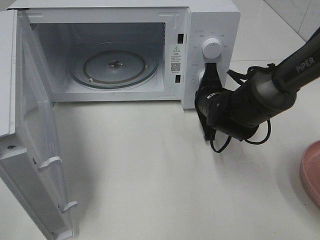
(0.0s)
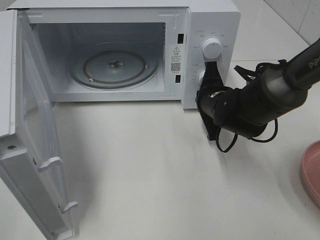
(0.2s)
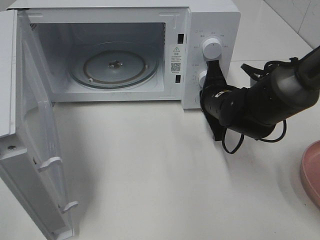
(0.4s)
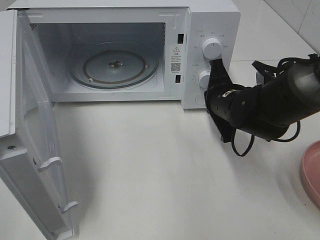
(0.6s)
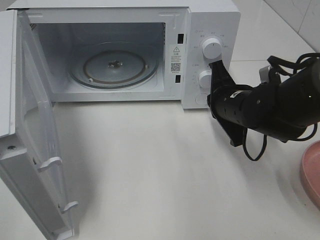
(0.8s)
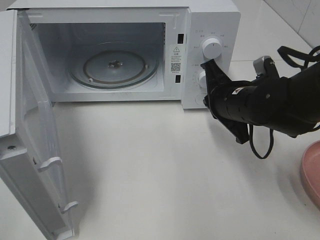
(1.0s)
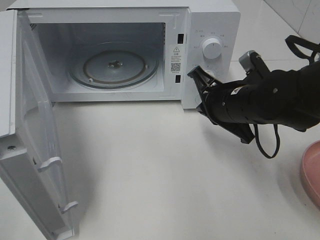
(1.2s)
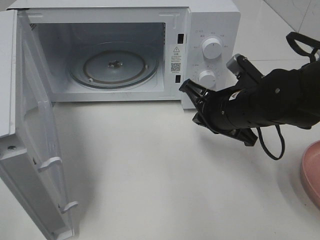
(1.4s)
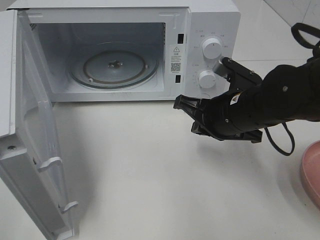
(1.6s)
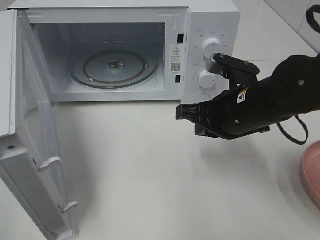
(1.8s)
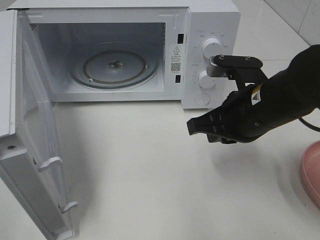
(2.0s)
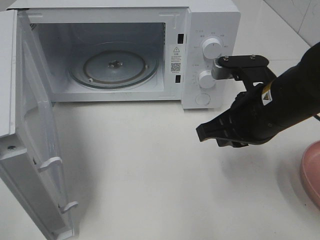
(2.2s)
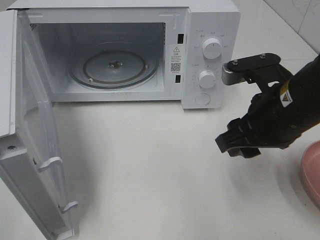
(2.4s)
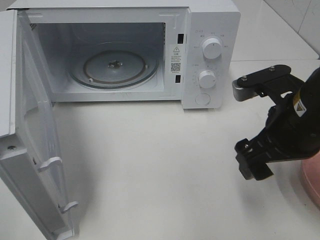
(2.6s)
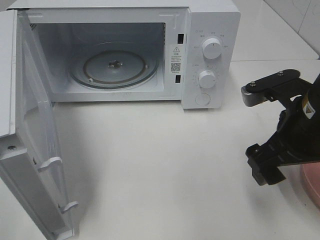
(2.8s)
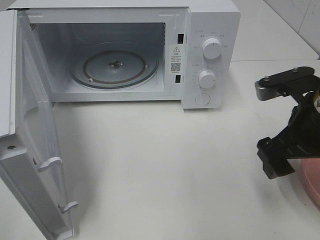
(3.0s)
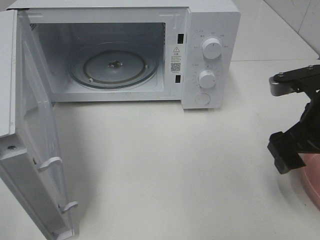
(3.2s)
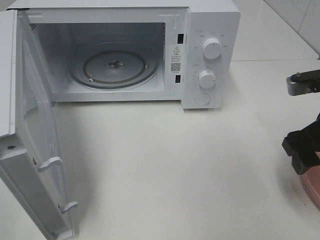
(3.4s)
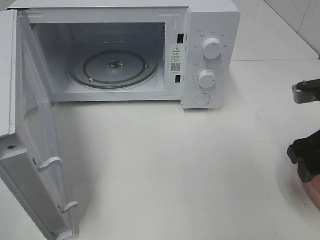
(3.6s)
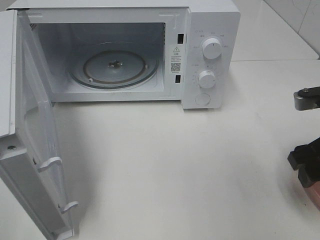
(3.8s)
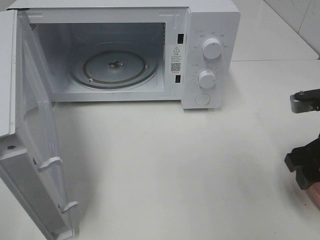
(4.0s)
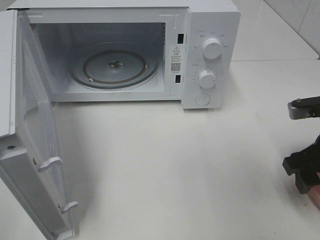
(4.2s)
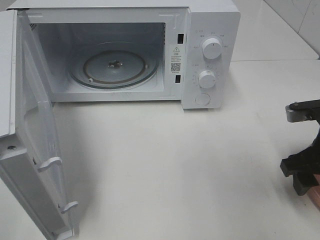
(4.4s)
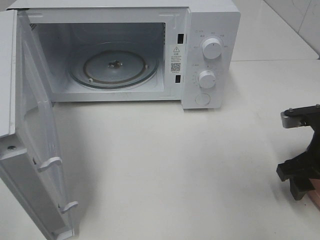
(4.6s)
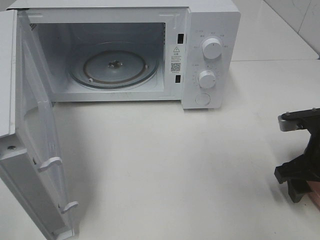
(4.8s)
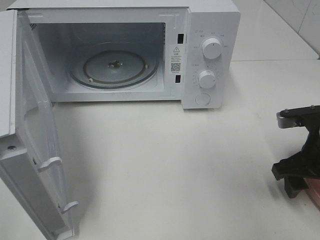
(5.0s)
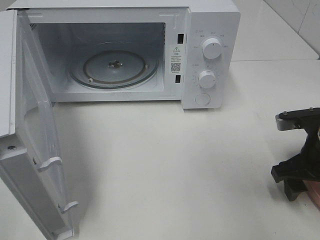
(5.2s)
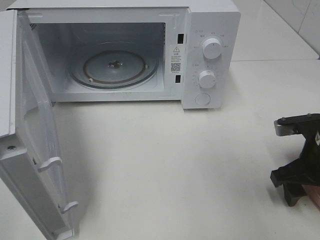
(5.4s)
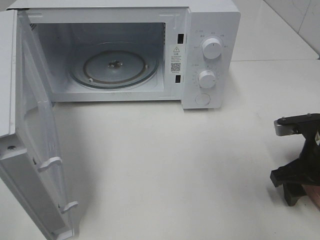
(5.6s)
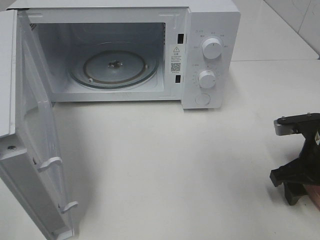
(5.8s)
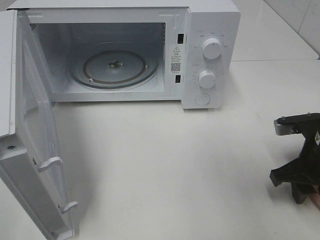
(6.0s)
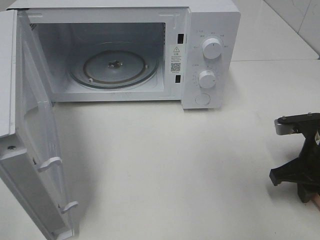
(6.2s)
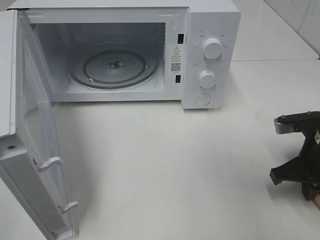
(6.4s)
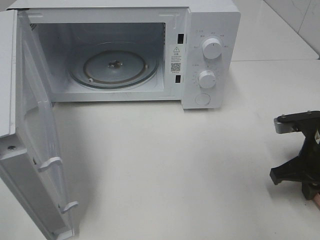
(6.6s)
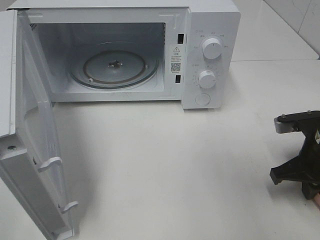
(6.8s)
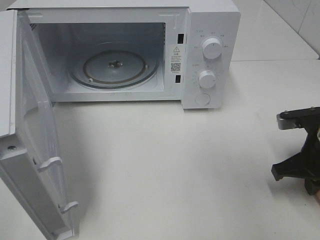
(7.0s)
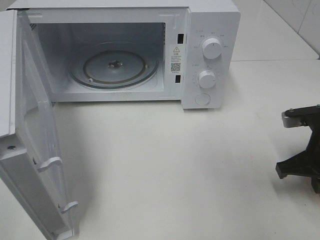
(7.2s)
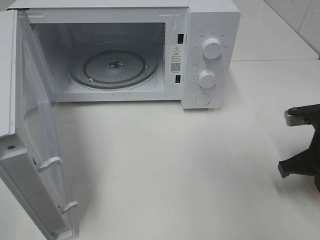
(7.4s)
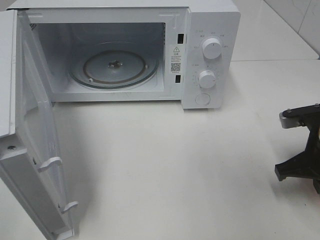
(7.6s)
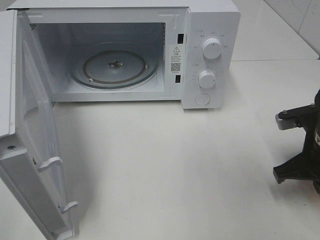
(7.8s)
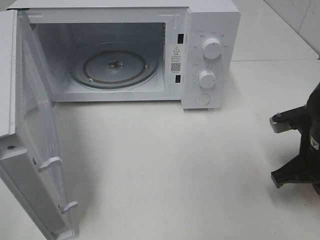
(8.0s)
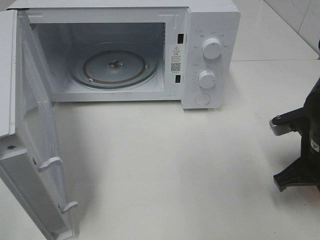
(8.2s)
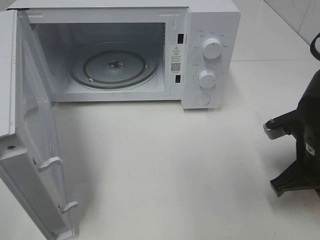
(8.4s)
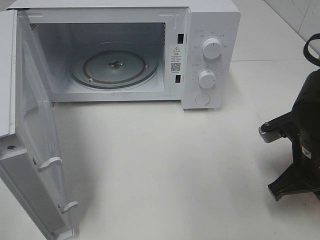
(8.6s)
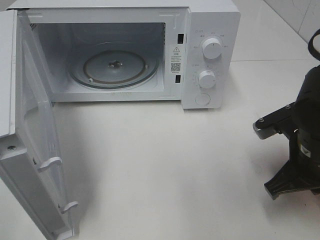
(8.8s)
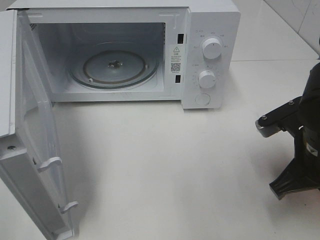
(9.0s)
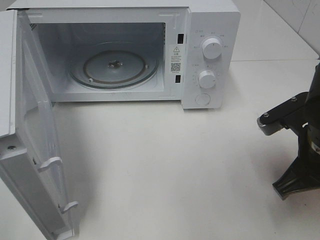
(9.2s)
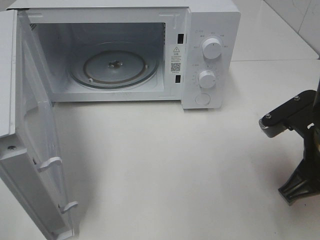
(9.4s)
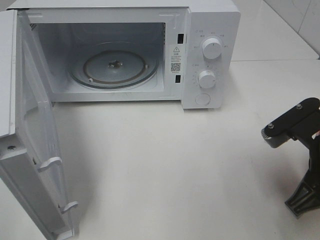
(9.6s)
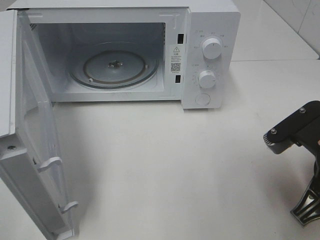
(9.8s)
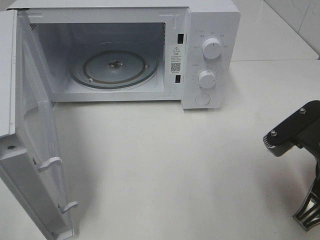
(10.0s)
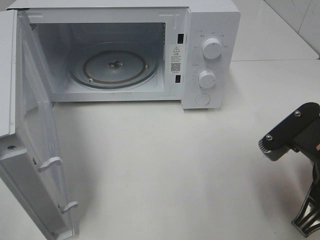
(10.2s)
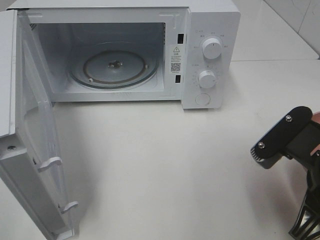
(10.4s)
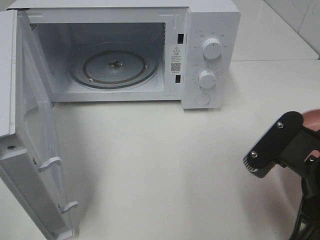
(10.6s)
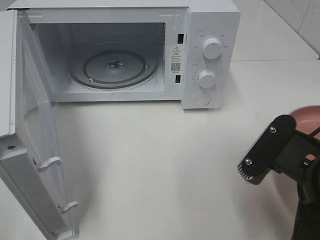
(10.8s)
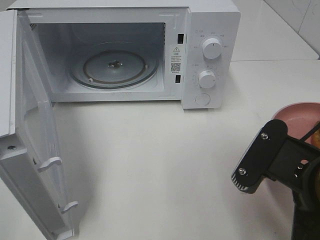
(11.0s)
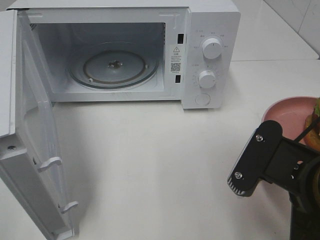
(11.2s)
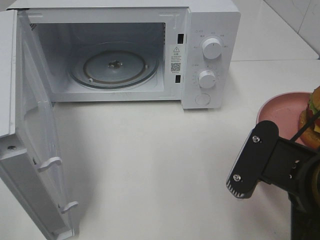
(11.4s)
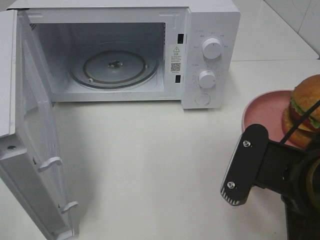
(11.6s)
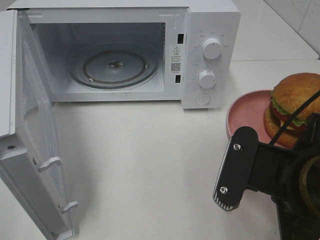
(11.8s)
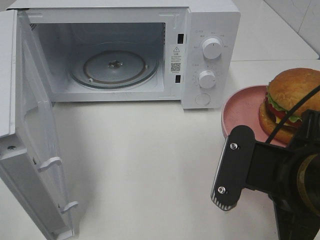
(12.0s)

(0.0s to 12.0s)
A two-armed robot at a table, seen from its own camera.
Task of the whole recording: Heat the burger.
Step, 0.6s - 6.6s: Right hand: grab the plate with the hamburger.
0.0s - 1.6s: The right gripper heads backward and upward, covering about 10 cm.
1.6s - 3.0s: The right gripper goes some 10 cm to the right, upward and backward, and opens up.
3.0s - 4.4s: The right gripper goes some 10 cm downward and to the right.
4.4s - 6.0s: The right gripper closes.
6.0s - 7.6s: The right gripper closes its fingers.
7.6s - 9.0s: The right gripper goes about 5 cm to the left.
9.0s - 10.4s: The right gripper is displaced backward by roughly 5 cm.

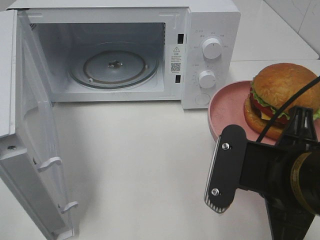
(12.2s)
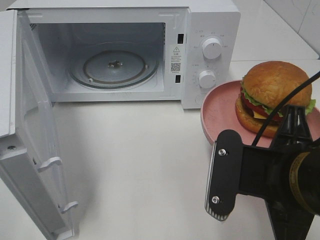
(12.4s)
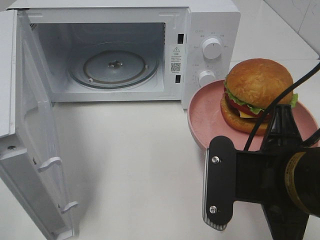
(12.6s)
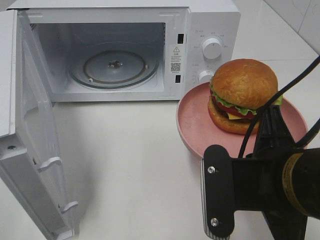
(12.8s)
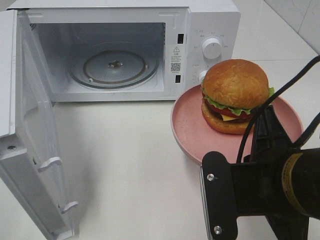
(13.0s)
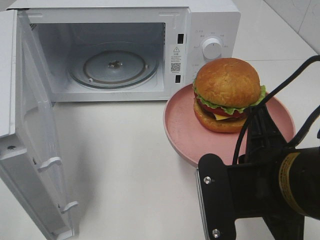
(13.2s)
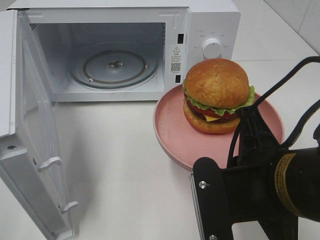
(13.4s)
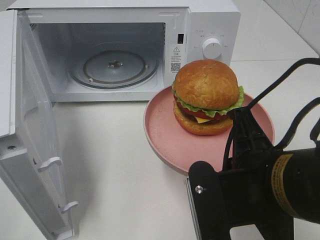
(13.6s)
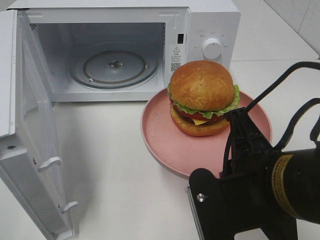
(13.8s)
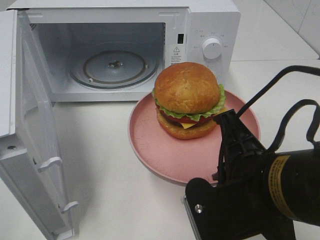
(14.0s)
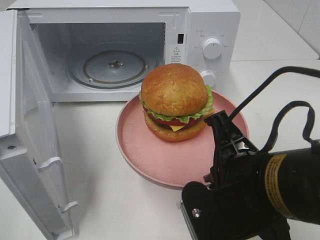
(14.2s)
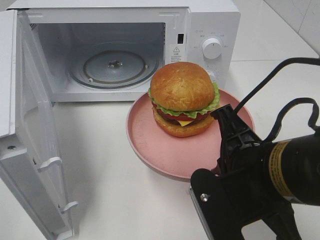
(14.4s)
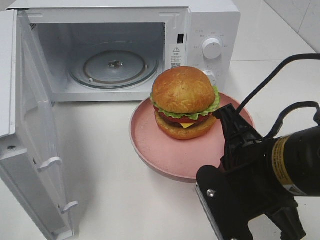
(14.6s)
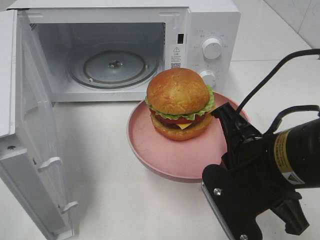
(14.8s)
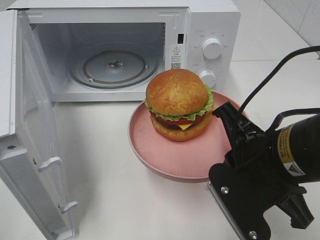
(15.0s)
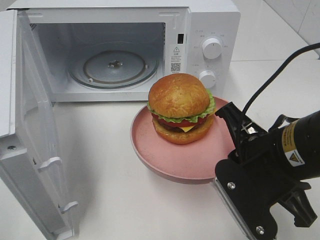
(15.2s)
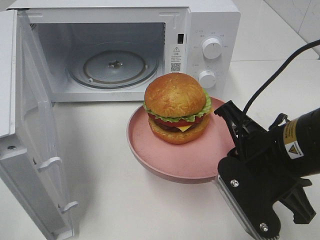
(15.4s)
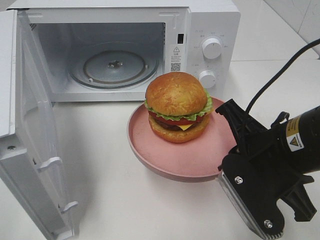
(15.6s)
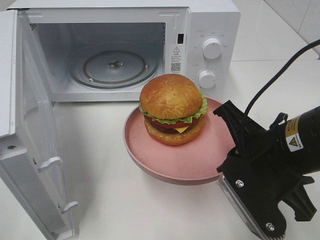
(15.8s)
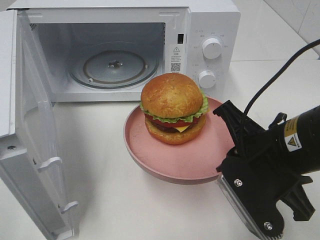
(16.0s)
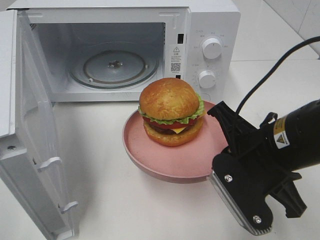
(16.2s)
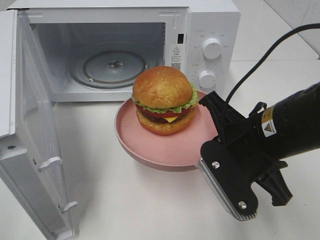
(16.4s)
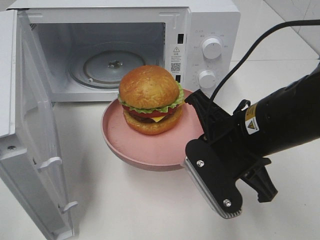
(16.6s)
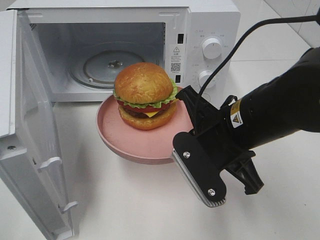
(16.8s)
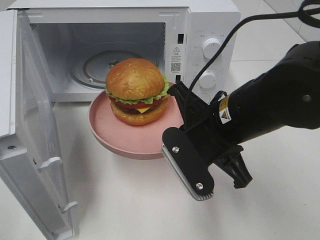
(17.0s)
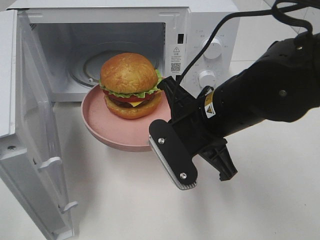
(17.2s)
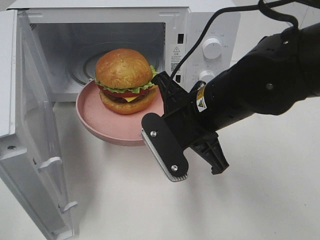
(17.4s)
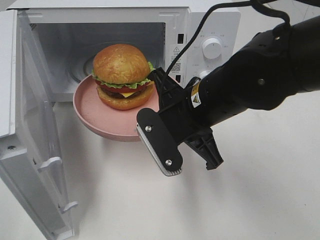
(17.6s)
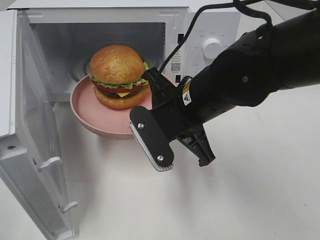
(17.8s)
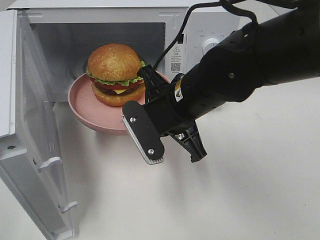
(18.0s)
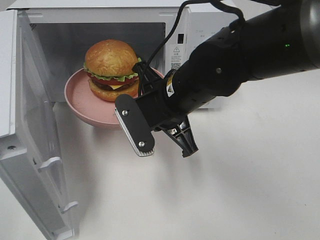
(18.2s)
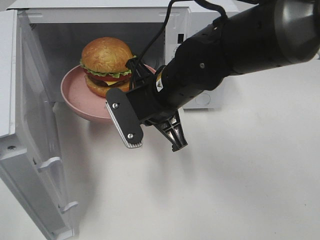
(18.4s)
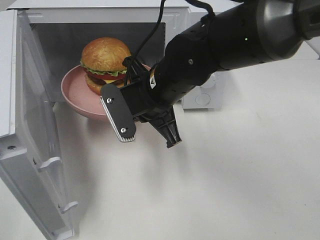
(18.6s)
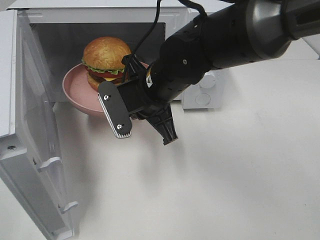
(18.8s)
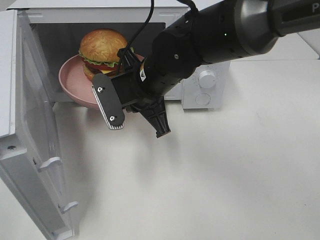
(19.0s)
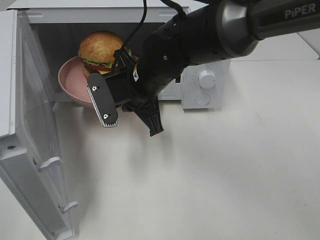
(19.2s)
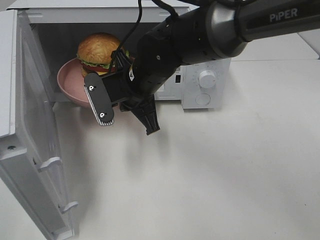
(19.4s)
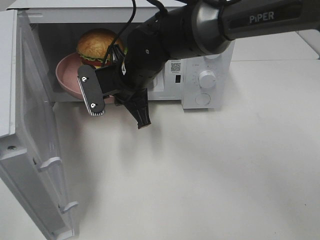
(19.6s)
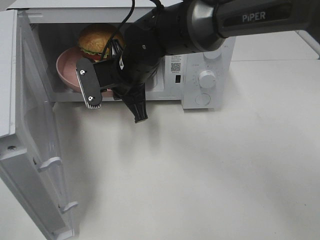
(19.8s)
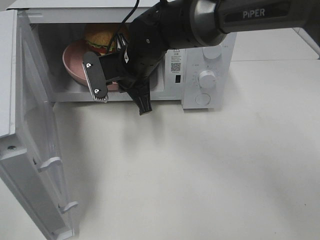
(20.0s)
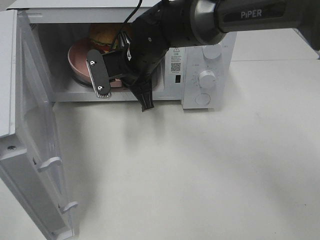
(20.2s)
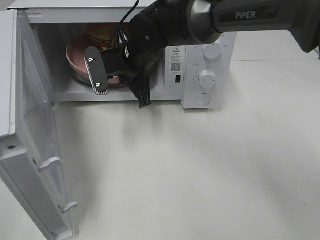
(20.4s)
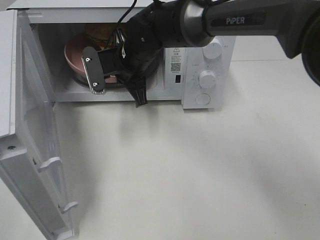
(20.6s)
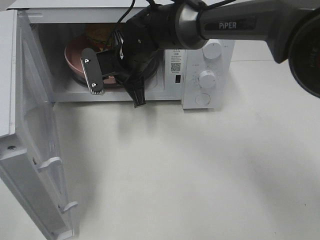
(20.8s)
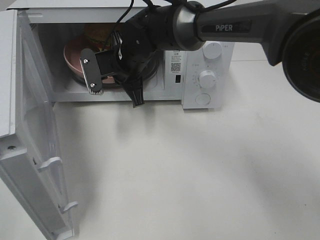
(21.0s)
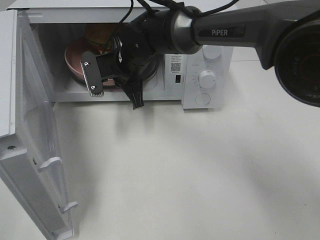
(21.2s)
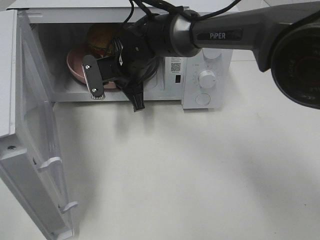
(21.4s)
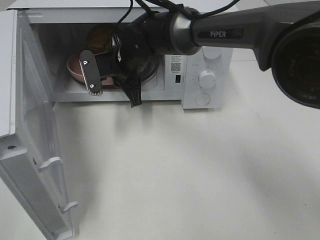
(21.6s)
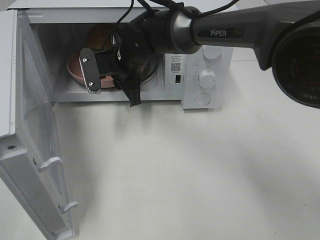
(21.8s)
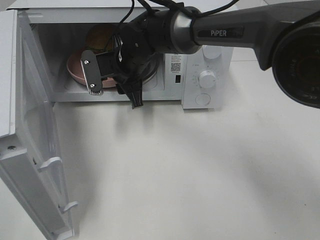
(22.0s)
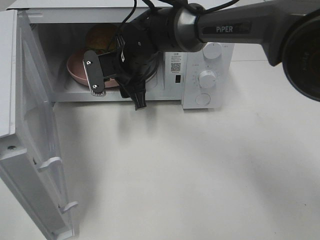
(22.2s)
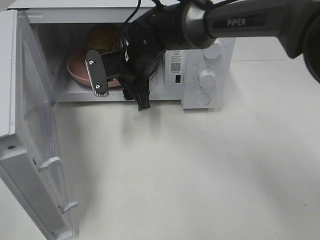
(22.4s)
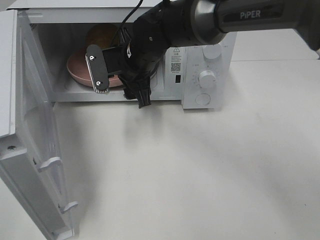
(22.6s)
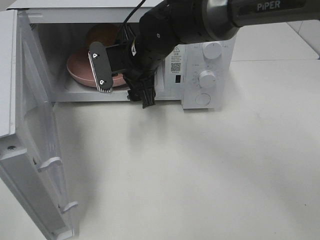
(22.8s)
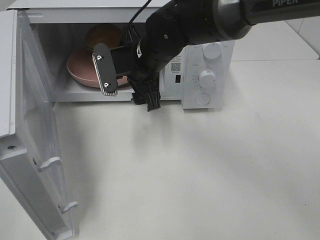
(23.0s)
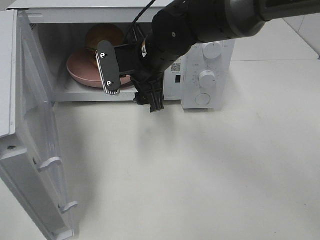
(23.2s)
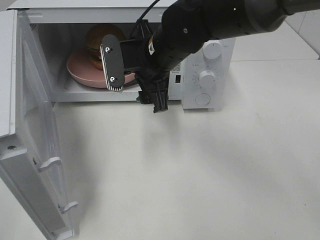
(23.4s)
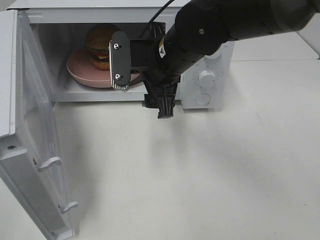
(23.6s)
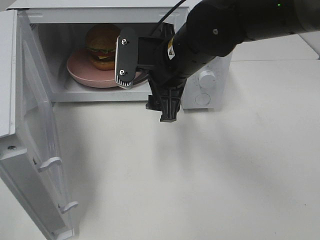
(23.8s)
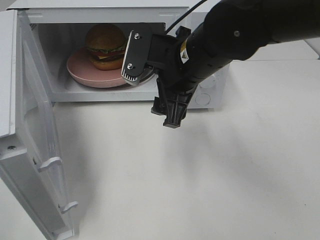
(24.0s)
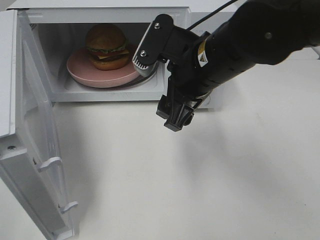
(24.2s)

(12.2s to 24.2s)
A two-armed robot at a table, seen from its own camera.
Task of the whole recording: Heat the burger.
Step, 12.2s - 21.8s: Right hand: place the plate in the microwave.
13.8s - 15.2s: The right gripper changes place by some 5 cm.
16.6s - 18.2s: The right gripper travels to the left and forward by roughly 10 cm.
18.2s - 19.8s: The right gripper travels forward and to the left by roughly 10 cm.
19.8s - 21.2s: The right gripper travels forward by about 5 cm.
21.2s - 22.6s: The right gripper opens its fingers.
22.6s - 24.2s: The right gripper travels backward, to the right and upward by about 15 cm.
